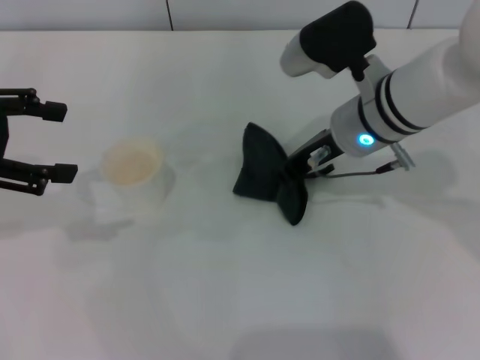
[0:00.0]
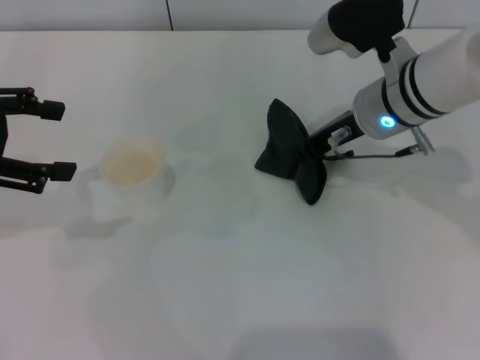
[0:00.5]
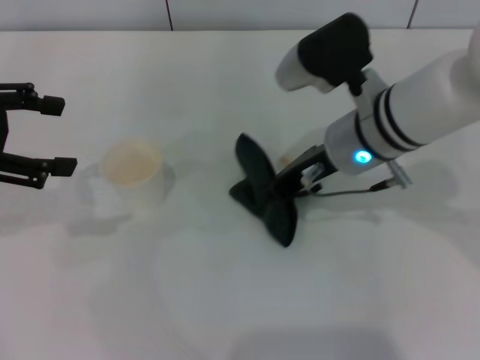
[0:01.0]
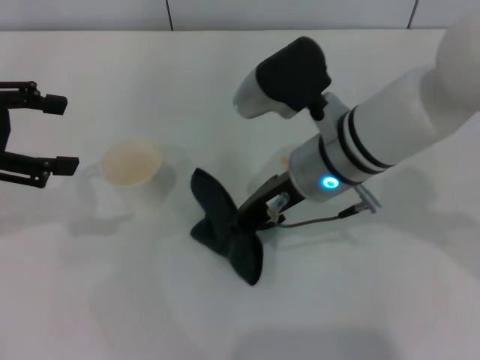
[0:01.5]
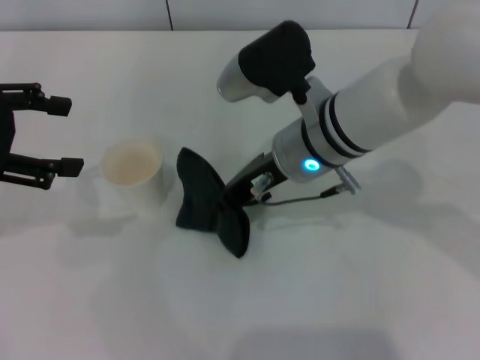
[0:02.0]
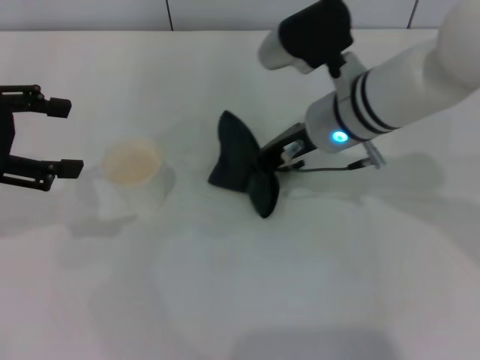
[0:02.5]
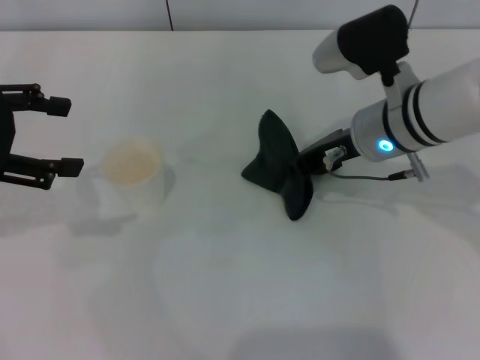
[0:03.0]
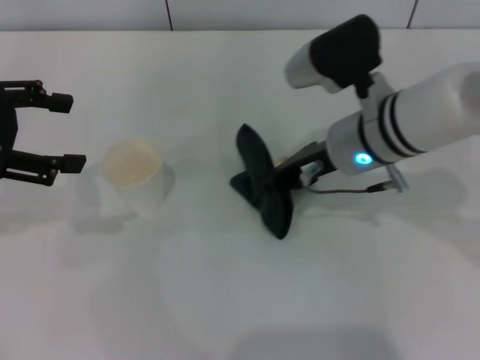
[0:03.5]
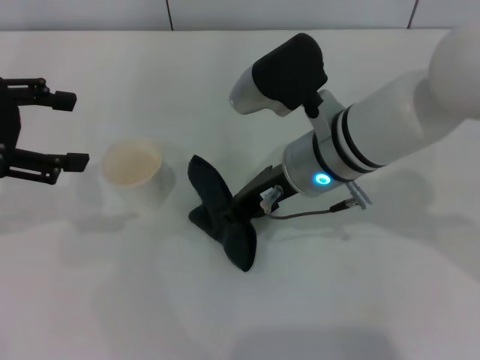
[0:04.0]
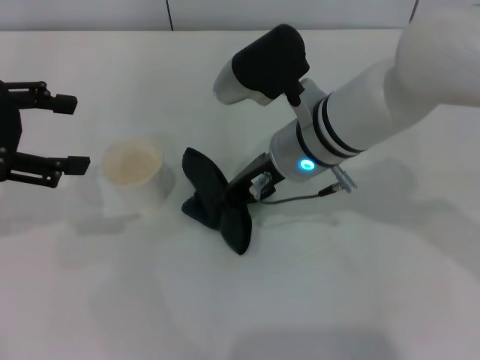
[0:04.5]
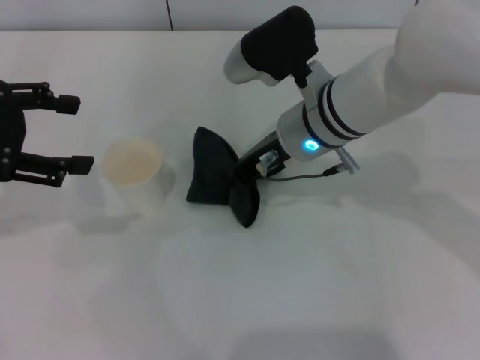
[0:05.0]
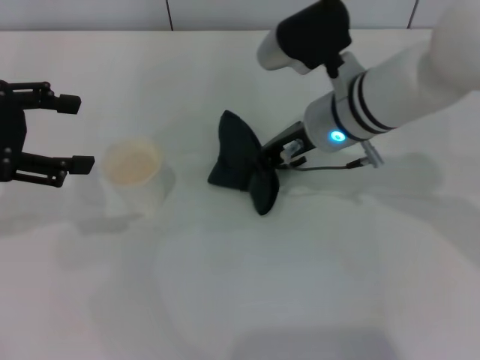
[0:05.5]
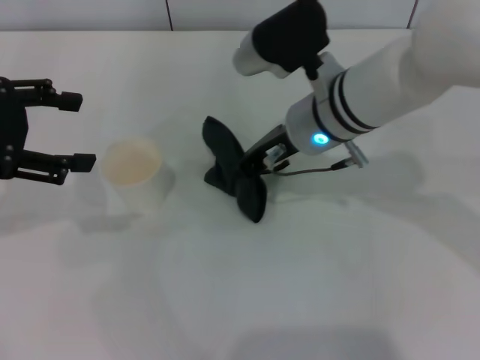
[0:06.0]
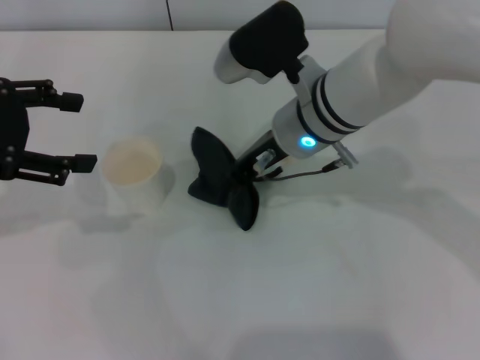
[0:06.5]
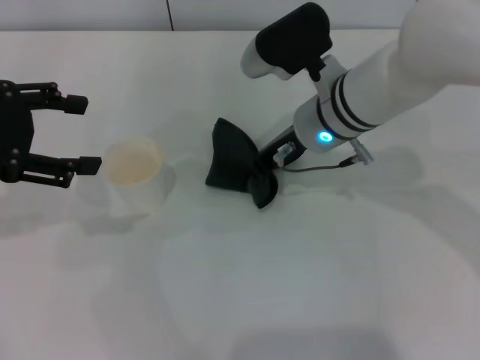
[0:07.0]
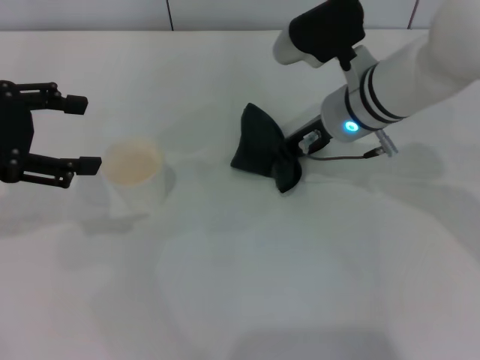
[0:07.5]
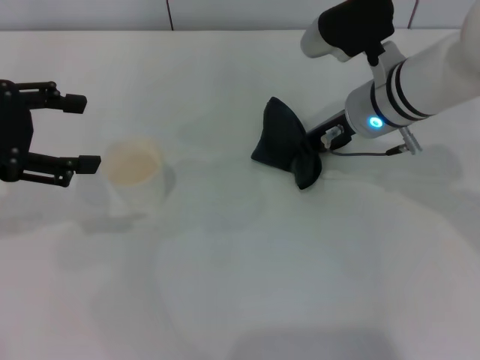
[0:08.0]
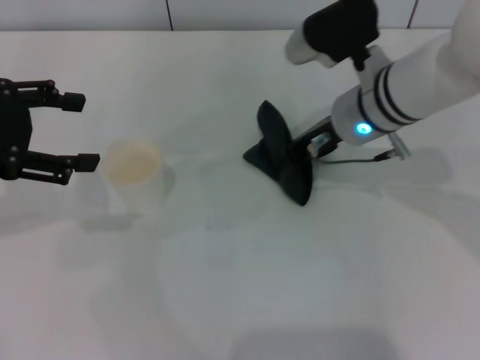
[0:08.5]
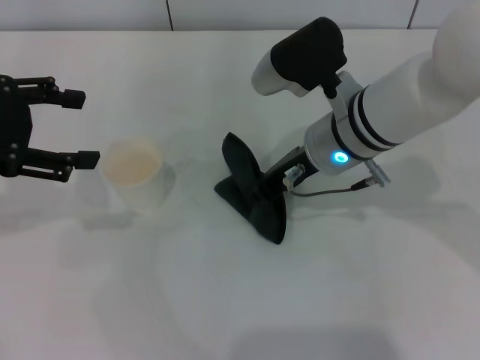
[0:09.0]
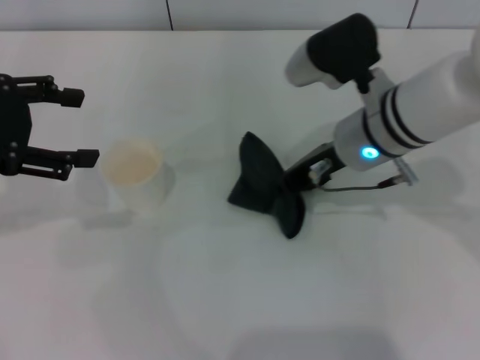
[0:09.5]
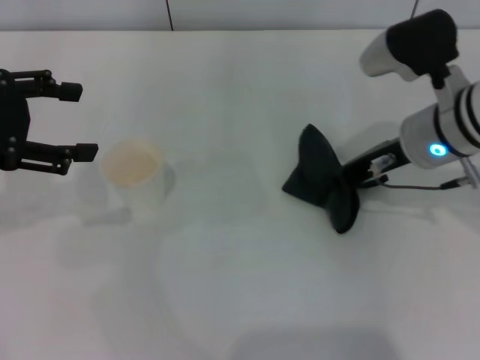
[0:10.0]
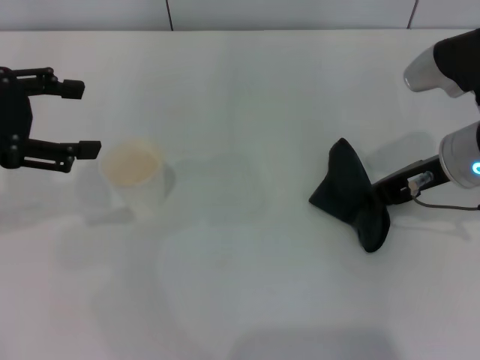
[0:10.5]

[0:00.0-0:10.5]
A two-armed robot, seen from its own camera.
0:00.0 to 0:02.0: The right gripper travels to the left by about 5 cm.
0:02.0 to 0:04.0: The right gripper travels to the right and back again, some 10 cm each way.
0:04.0 to 0:06.5: The grippers move only a little.
0:06.5 to 0:08.5: The right gripper moves to the right, approximately 5 cm.
0:08.5 to 0:10.5: The right gripper heads to the right and backward, covering roughly 10 cm.

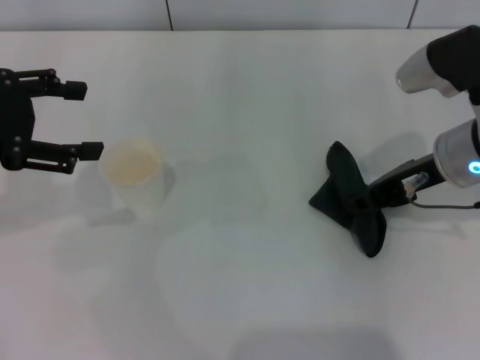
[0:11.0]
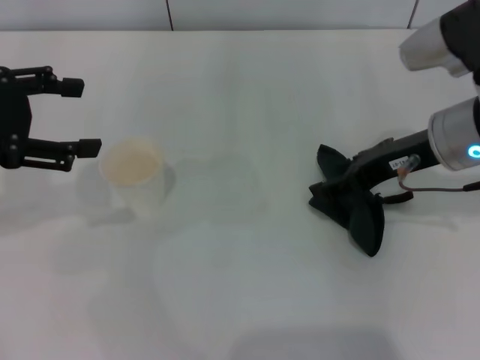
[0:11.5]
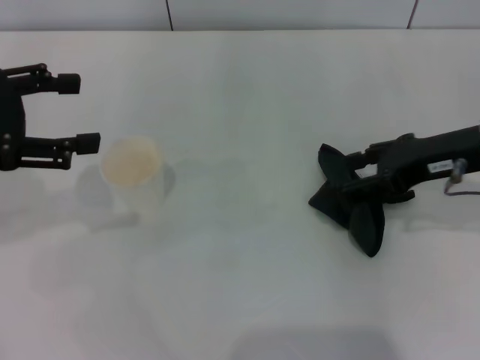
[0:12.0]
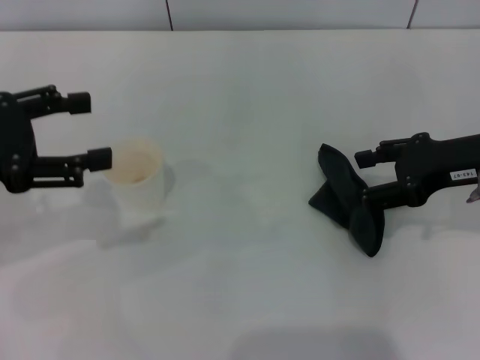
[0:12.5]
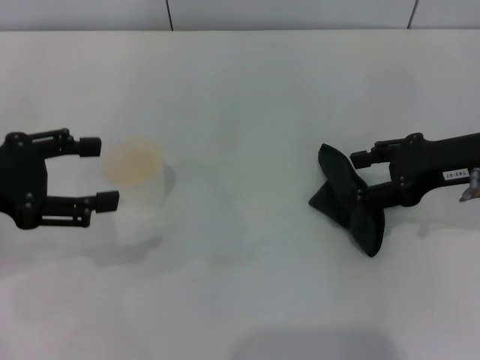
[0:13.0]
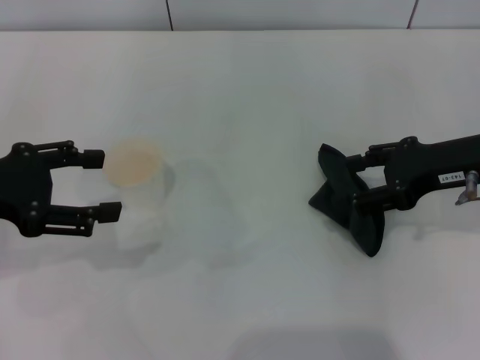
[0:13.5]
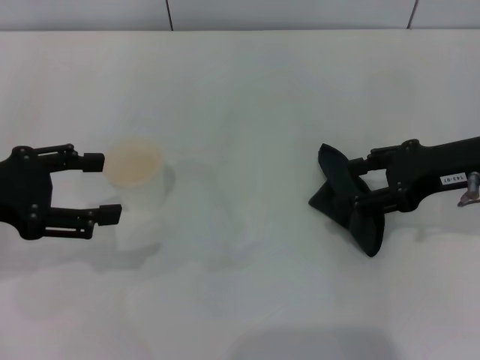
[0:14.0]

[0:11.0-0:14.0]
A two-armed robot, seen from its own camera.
Step, 0:11.0 to 0:12.0: Place the rag on the table with the right gripper.
0:11.0 to 0:12.5: The right gripper shifts some 5 cm to the right, and opens its fingers.
0:12.5 to 0:14.0: The grippers stay close to where they were, moving slightly.

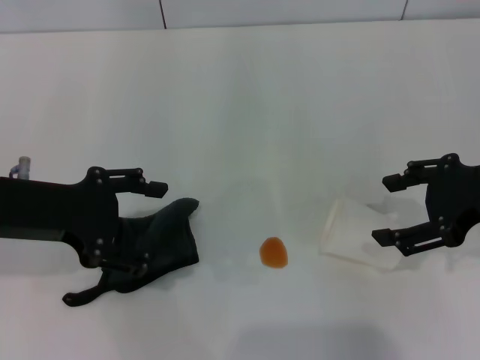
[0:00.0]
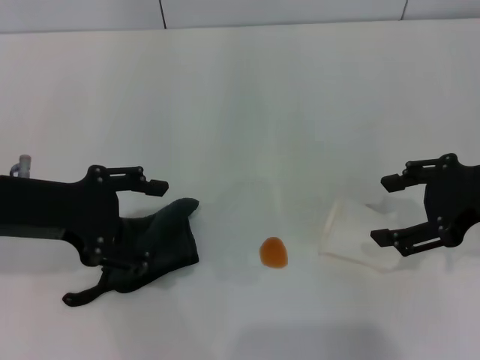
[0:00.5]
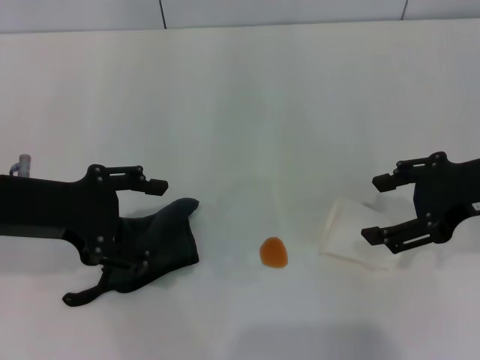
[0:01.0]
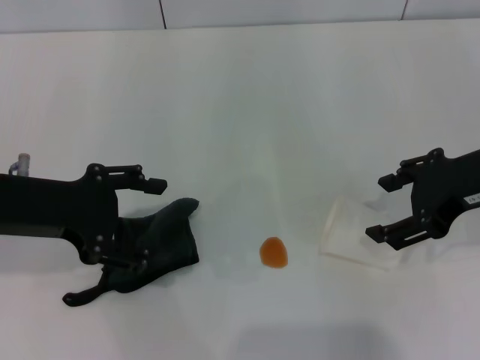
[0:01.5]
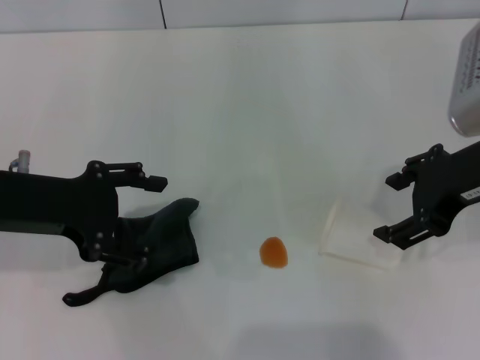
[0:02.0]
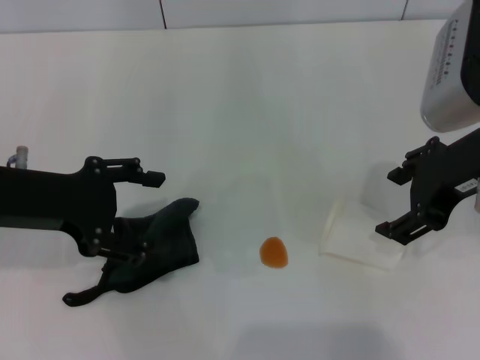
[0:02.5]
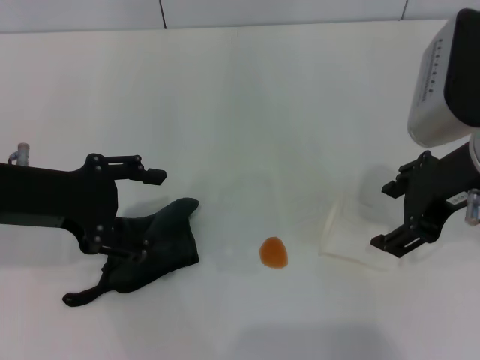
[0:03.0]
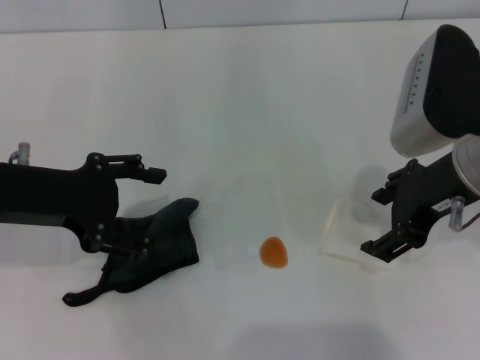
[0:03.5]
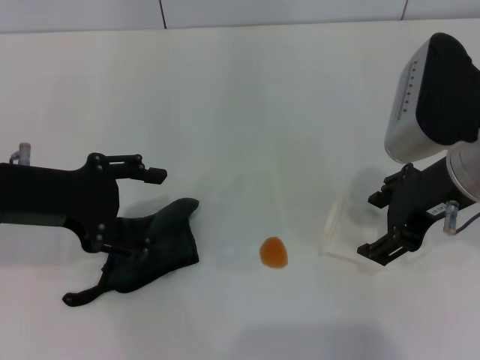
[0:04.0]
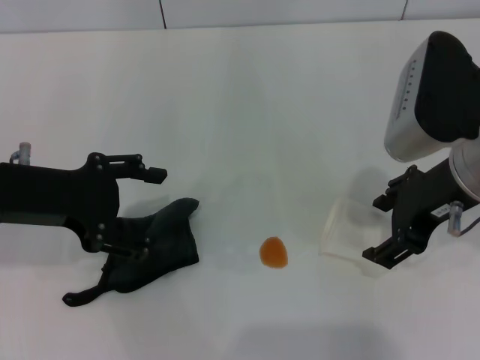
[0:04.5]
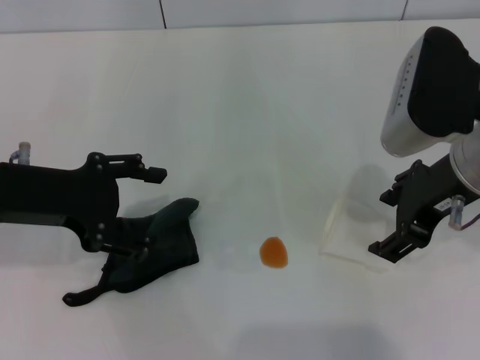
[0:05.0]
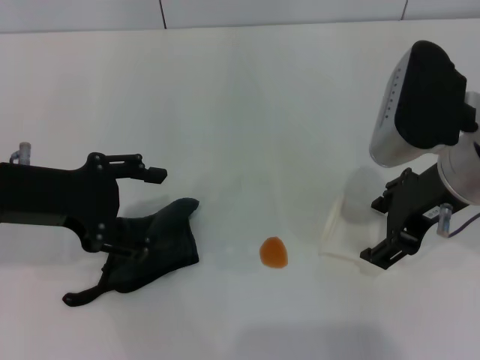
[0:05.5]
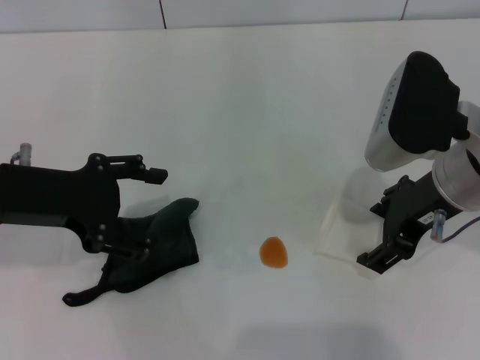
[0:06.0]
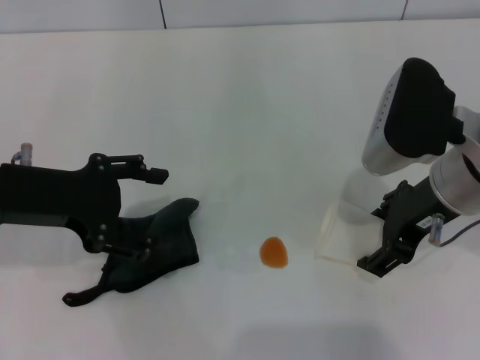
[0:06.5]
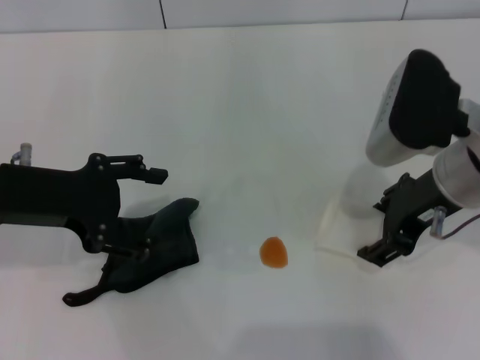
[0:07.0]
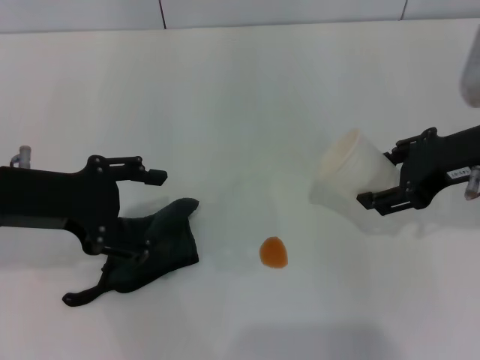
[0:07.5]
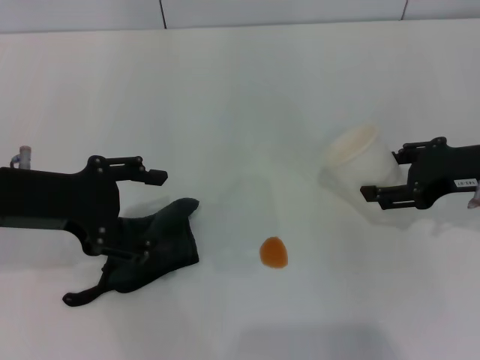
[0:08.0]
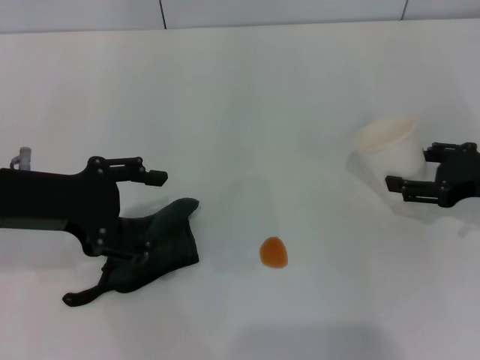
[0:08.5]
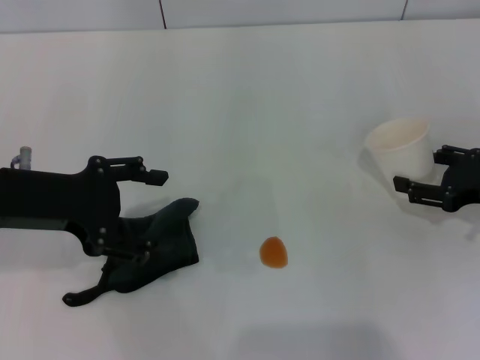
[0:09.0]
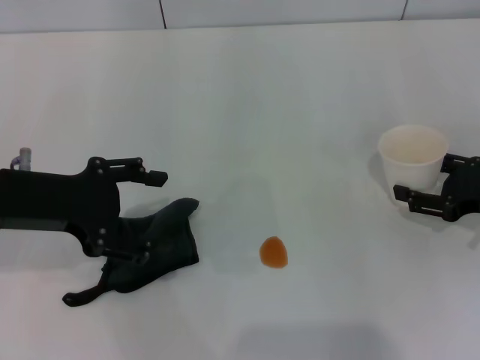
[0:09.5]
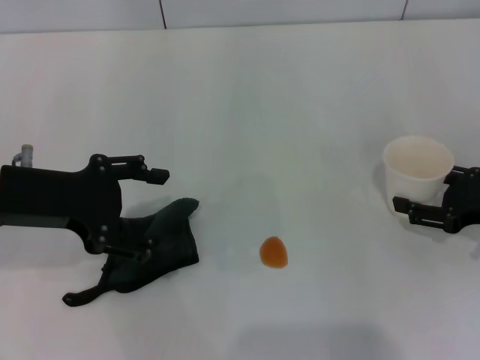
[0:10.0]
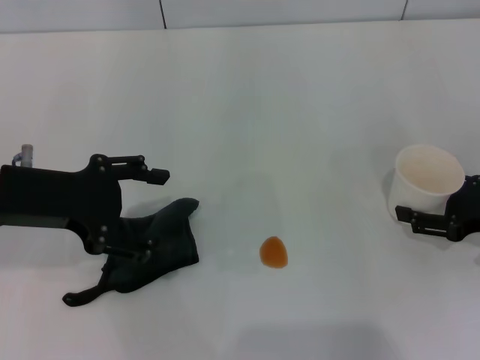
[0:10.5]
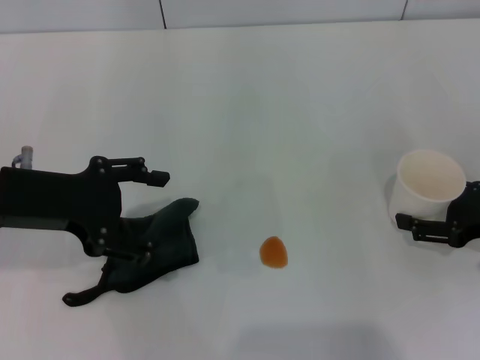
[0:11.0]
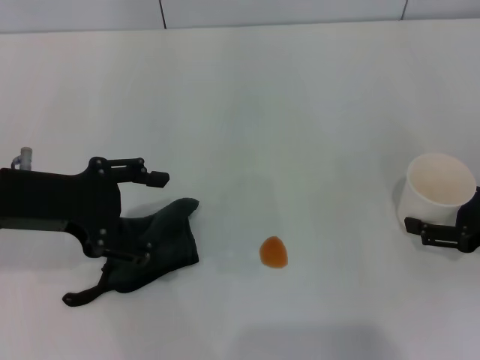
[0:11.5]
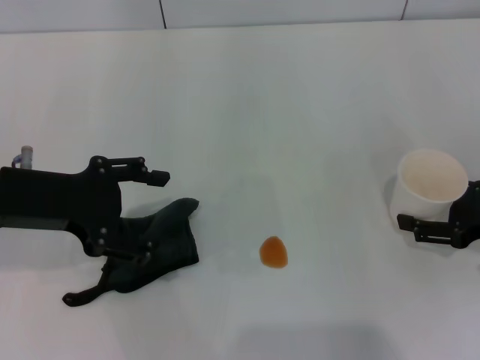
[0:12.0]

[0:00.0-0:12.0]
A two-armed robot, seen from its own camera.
Step, 0:00.0 to 0:06.5: Grasp the paper cup with the right gripper.
0:00.0 to 0:02.0: The right gripper travels to the left by approximately 5 cm.
0:02.0 to 0:06.0: The grippers move only a little.
0:06.0 to 0:08.0: The right gripper moves to the right, about 10 cm.
0:08.0 to 0:10.0: The right gripper heads downward and to the right, covering roughly 10 cm.
0:10.0 to 0:12.0: The right gripper opens.
